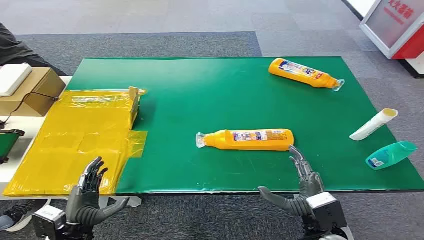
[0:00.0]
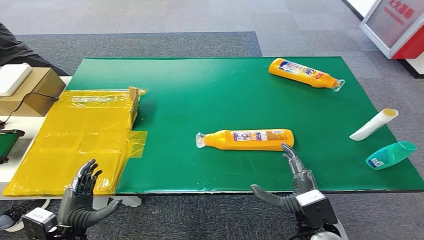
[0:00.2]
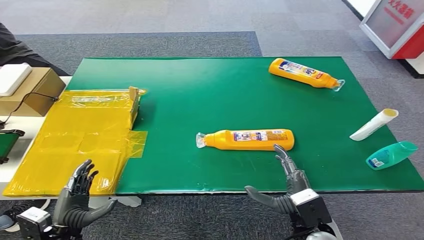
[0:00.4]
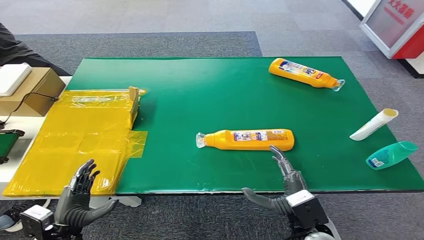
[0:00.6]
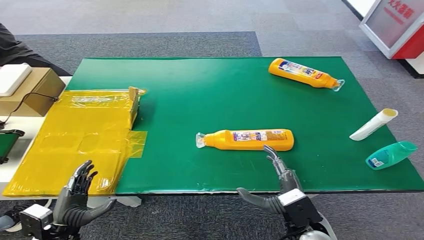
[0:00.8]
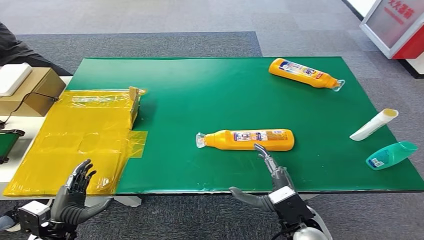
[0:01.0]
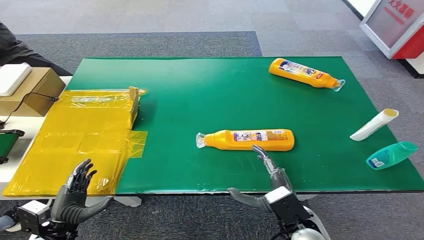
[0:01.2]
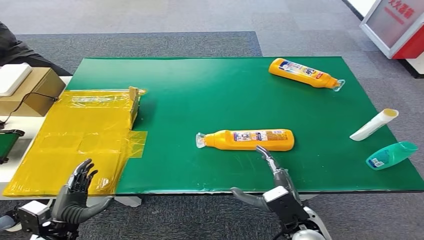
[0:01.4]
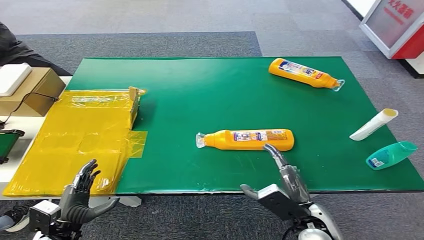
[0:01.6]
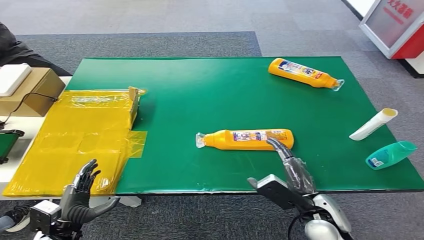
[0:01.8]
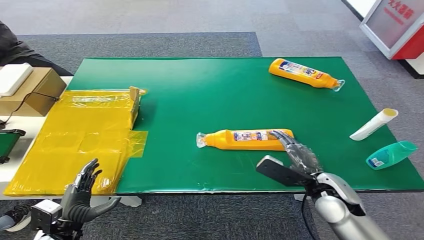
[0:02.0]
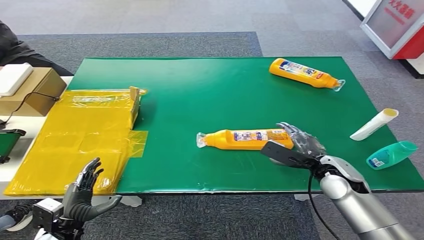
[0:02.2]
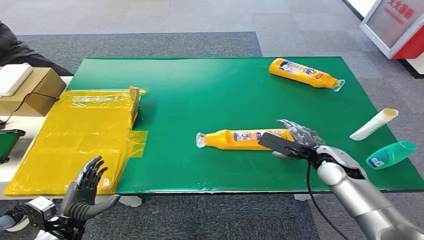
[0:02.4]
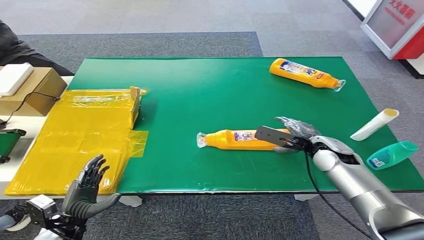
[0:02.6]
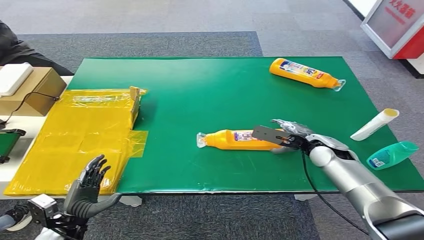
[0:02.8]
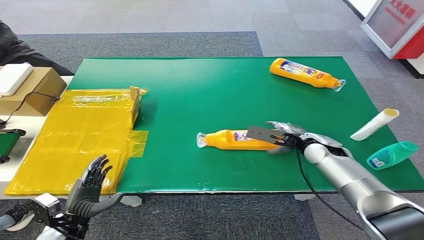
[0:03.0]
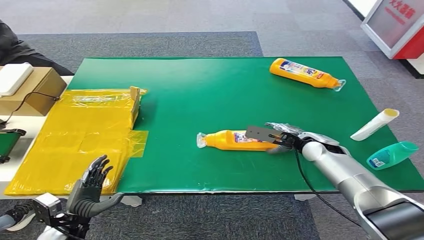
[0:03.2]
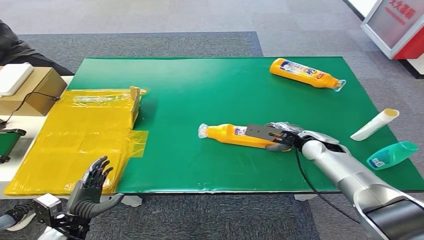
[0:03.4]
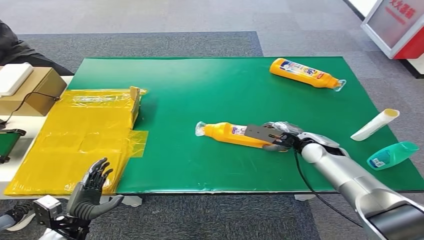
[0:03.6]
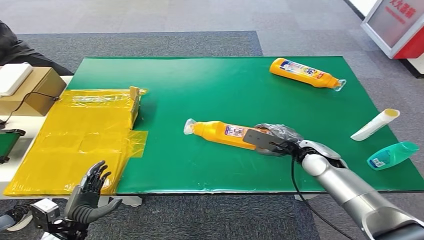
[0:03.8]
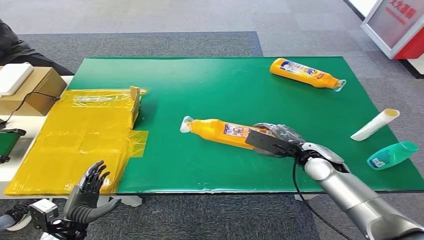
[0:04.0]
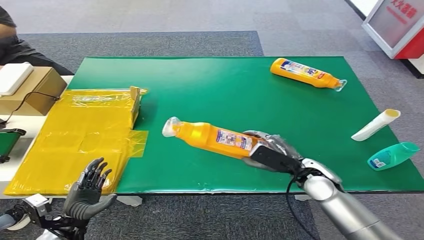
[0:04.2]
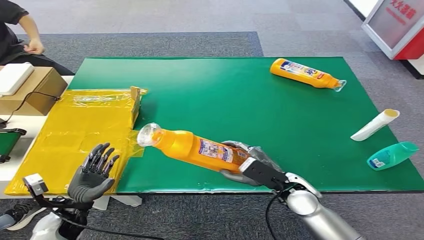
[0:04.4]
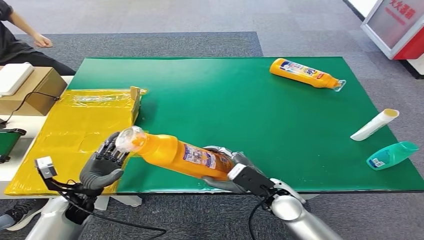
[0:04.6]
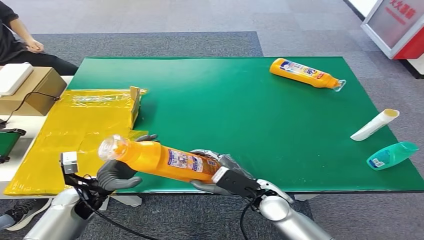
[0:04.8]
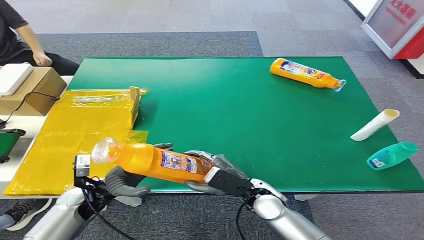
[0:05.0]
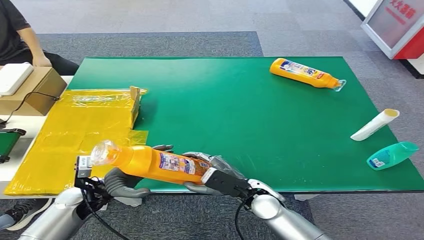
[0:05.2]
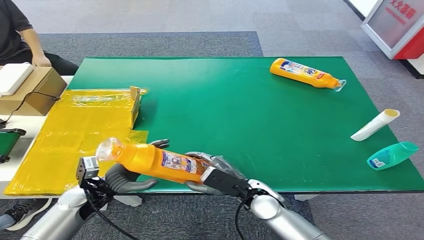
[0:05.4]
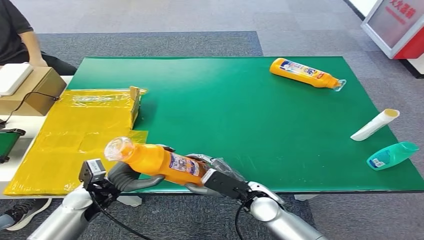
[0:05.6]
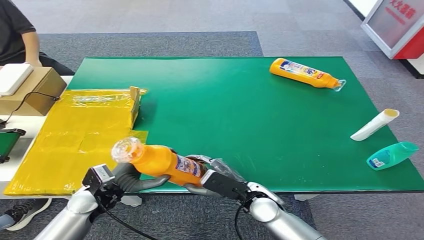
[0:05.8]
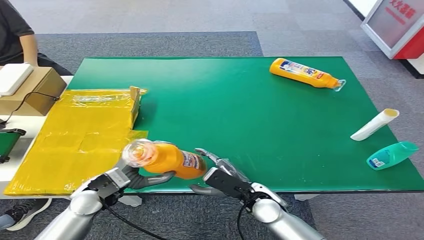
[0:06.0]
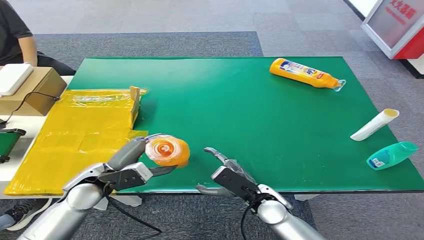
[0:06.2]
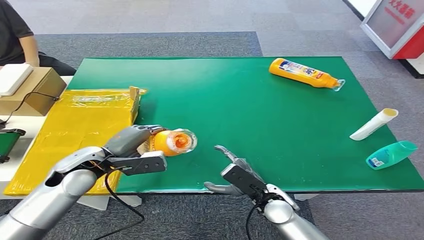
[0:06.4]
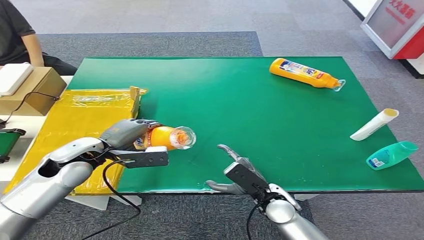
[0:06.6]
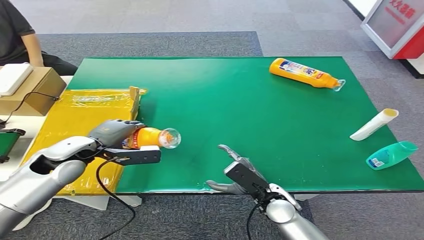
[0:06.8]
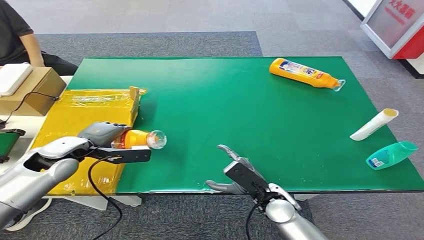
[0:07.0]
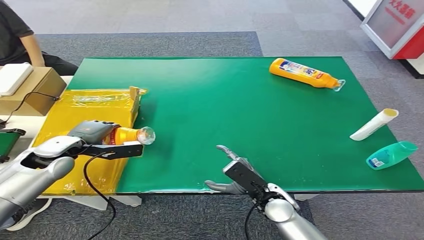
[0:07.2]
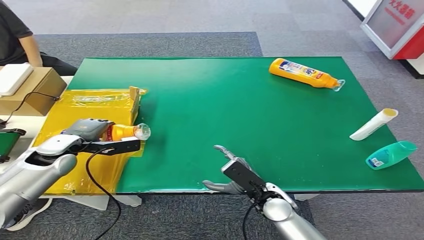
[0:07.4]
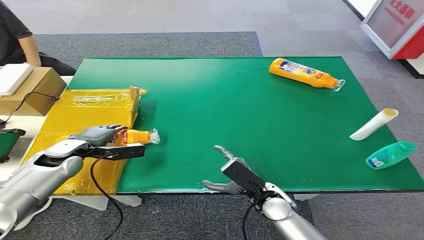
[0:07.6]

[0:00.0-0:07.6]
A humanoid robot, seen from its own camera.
Step, 0:00.0 to 0:04.2: Pick up the bottle from the table.
Step, 0:04.4 to 0:07.4: Turn the bottle to the front side.
0:01.6 to 0:03.0: The right hand shifts some 20 cm forward.
0:03.0 to 0:04.6: The right hand travels backward and to the left by roughly 20 cm. The left hand shifts approximately 10 cm forward.
0:04.6 to 0:06.0: The left hand travels to the right and upward by roughly 10 cm.
0:06.0 to 0:07.6: The left hand moves forward and to the left, approximately 15 cm.

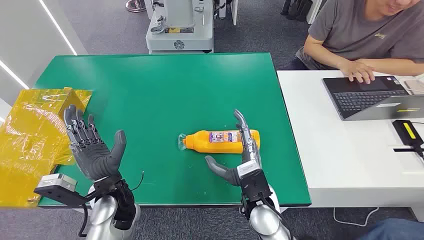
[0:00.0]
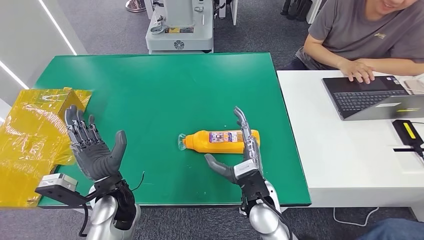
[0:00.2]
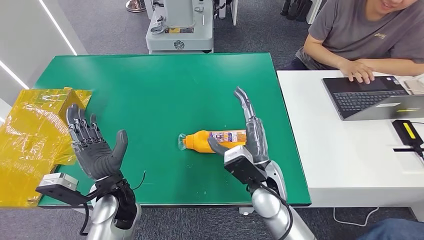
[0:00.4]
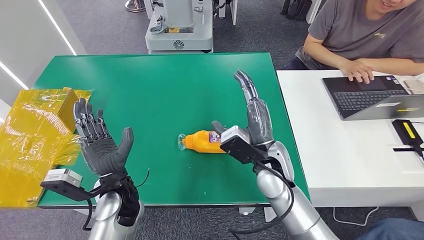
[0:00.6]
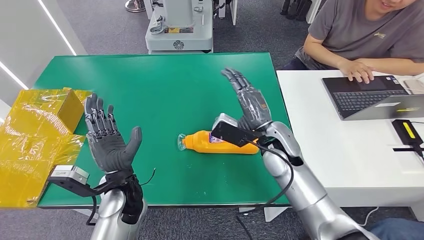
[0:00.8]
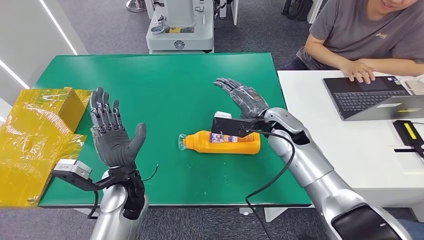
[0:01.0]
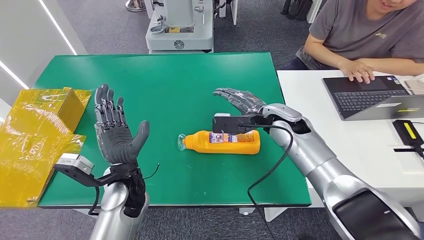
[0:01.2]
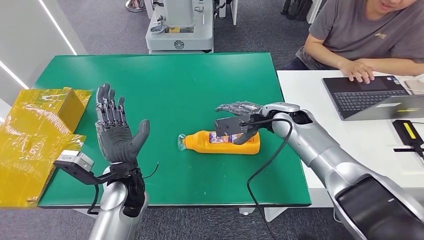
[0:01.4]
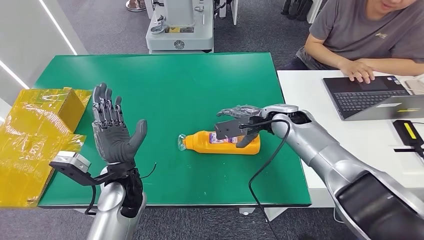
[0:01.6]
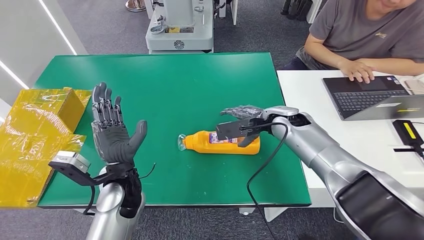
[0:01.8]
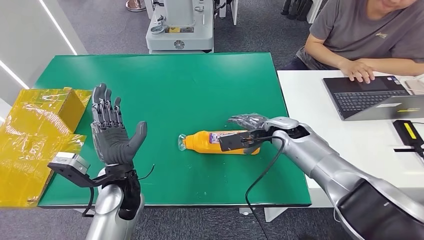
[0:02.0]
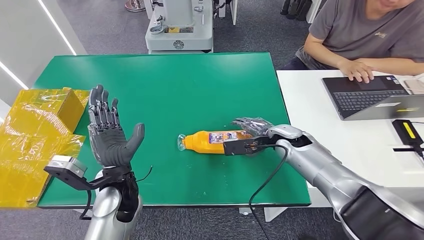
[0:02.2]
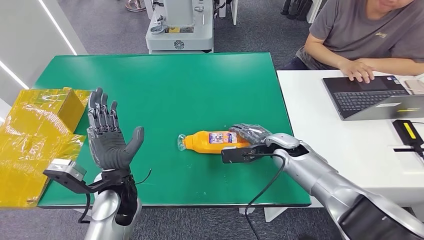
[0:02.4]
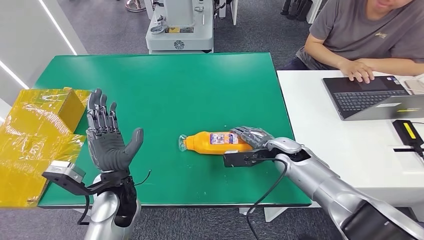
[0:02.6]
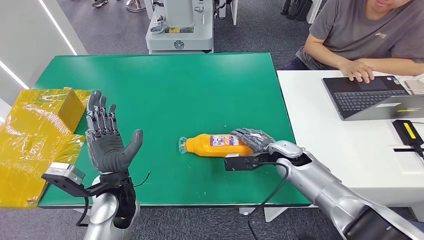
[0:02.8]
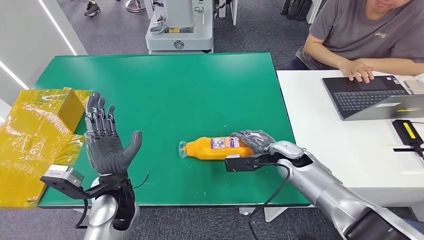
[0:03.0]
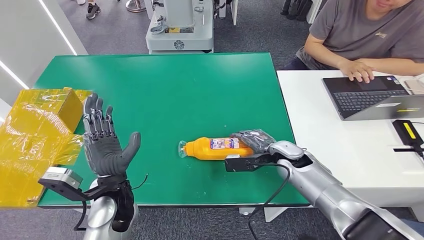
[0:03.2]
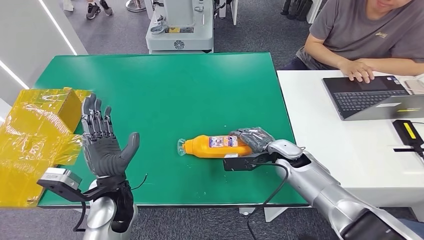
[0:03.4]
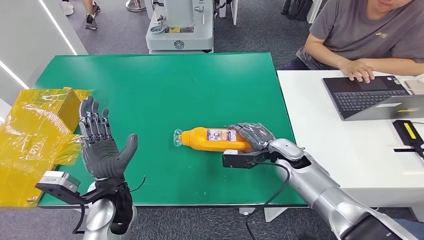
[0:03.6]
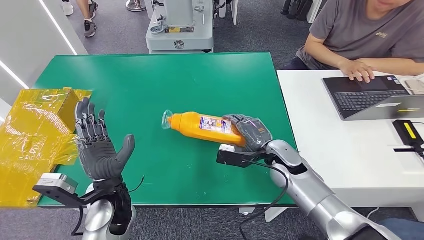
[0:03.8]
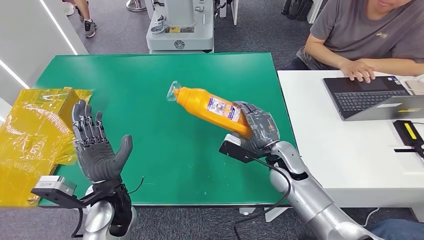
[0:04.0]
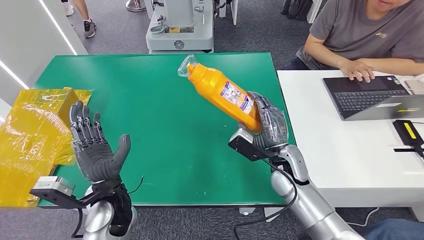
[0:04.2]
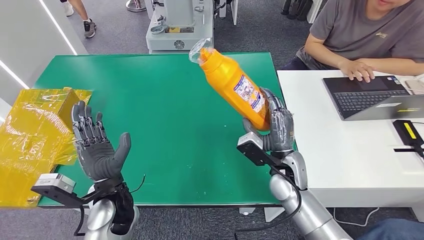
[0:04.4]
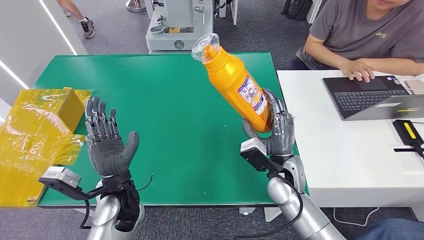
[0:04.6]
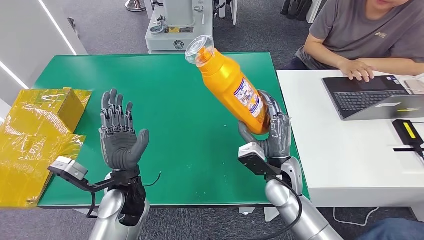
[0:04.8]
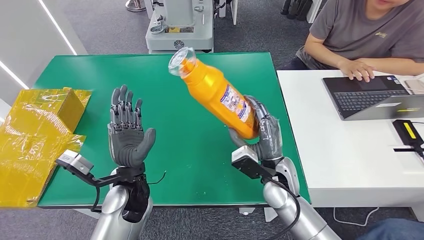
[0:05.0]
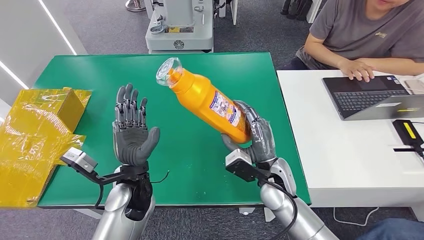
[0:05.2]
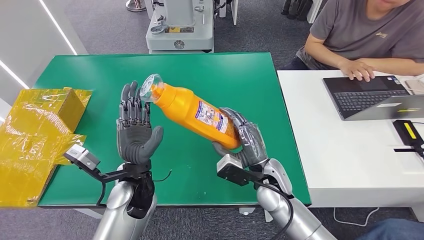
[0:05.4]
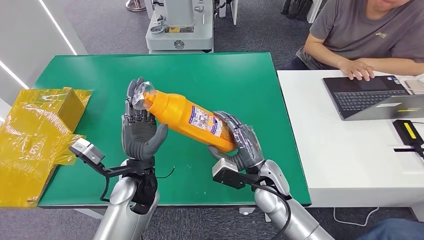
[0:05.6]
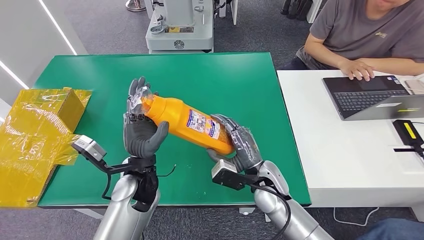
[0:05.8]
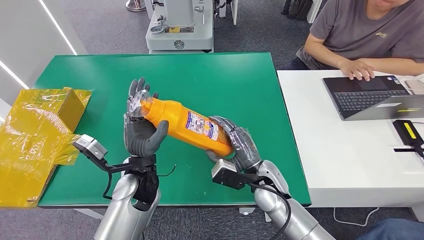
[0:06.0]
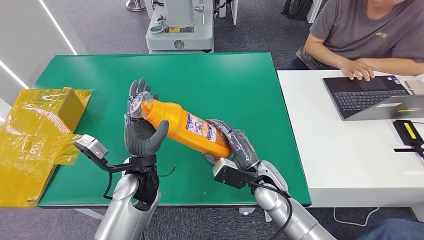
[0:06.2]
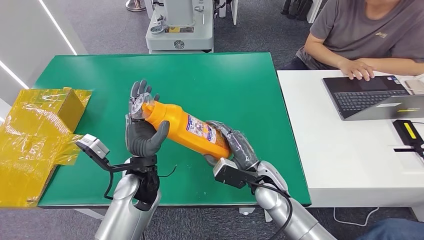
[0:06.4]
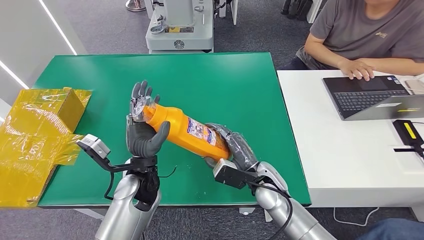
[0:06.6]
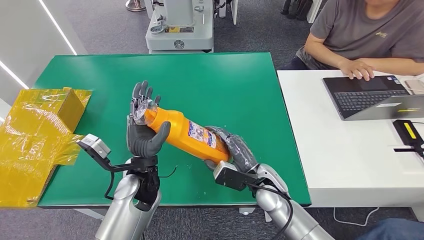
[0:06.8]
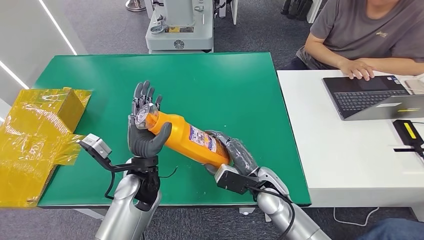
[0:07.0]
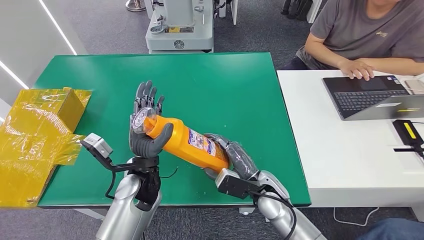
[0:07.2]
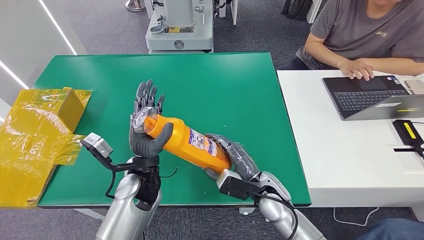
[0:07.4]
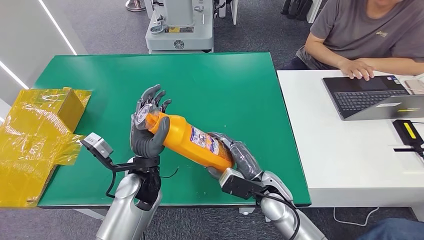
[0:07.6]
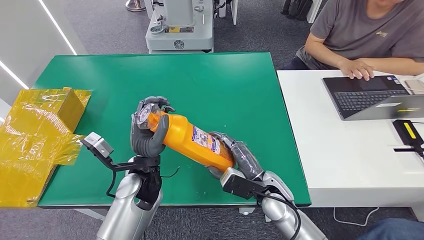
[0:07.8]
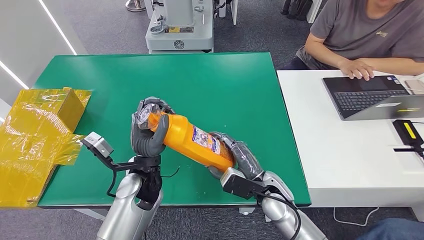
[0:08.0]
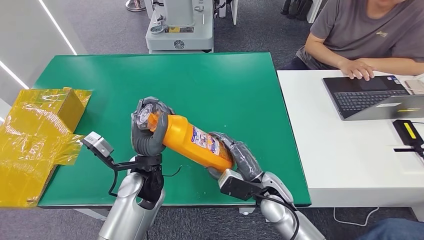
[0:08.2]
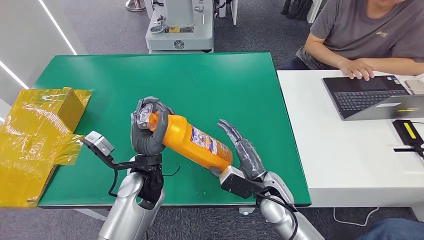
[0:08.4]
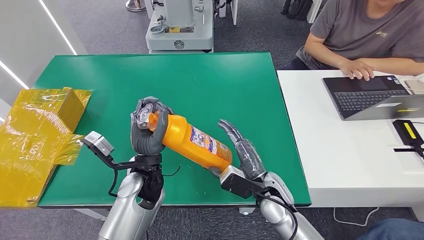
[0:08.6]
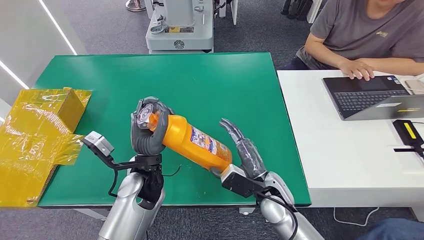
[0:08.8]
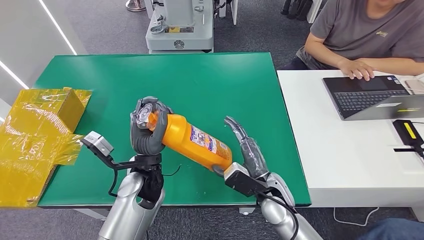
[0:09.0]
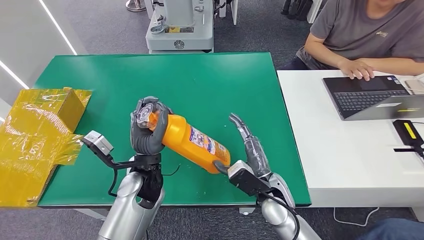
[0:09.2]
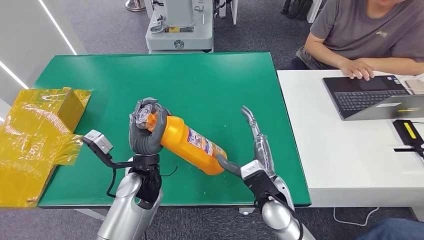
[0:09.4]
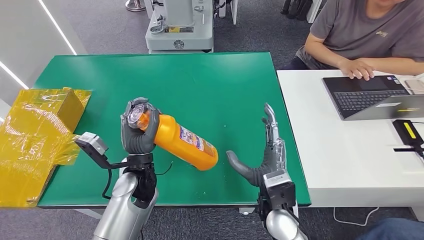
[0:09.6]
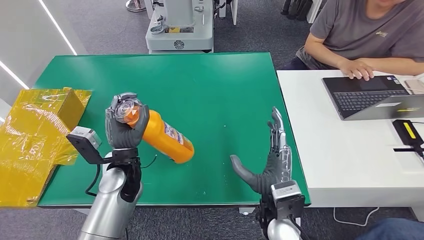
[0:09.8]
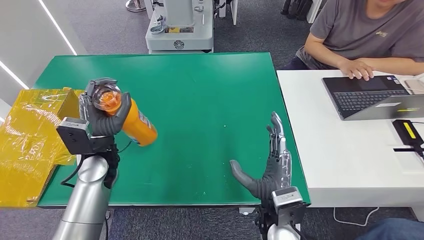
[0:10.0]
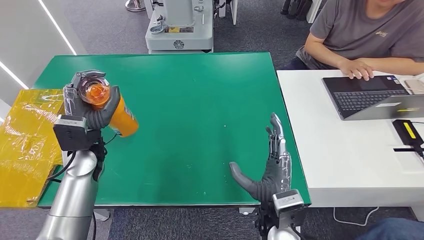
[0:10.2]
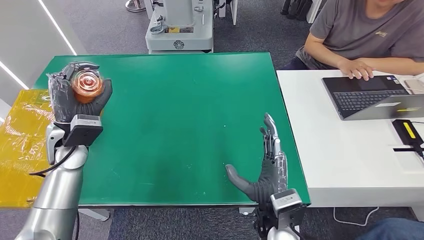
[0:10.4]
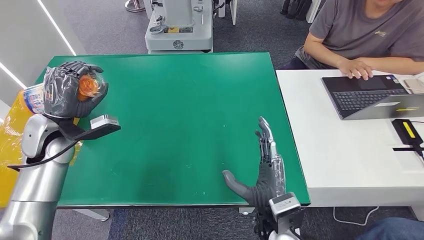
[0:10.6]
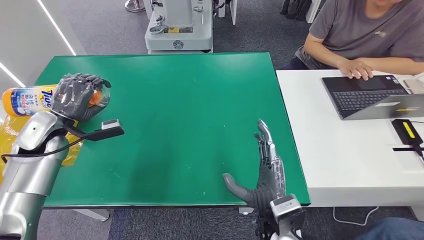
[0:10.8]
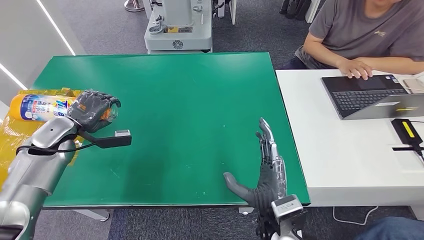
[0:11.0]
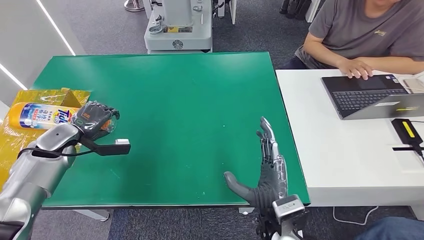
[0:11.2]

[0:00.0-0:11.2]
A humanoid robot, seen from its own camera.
Step, 0:00.0 to 0:04.8: Pick up the bottle from the table.
0:01.6 to 0:03.2: The right hand shifts about 15 cm downward and backward.
0:06.4 to 0:08.0: The hands make only small movements.
0:08.0 to 0:09.6: The right hand ends up roughly 5 cm from where it was.
0:09.6 to 0:11.2: The left hand shifts about 30 cm to the left.
